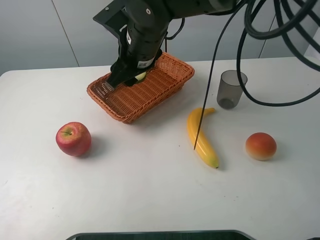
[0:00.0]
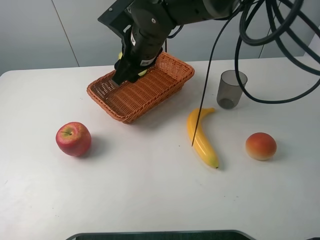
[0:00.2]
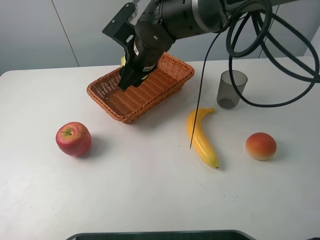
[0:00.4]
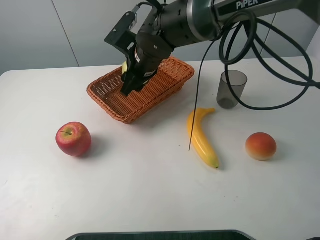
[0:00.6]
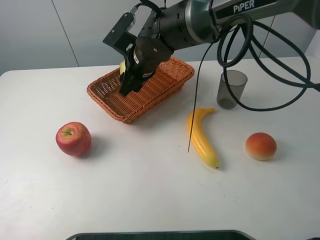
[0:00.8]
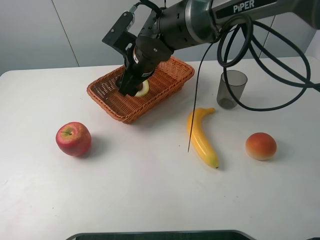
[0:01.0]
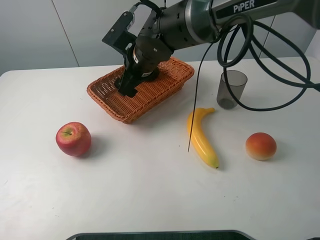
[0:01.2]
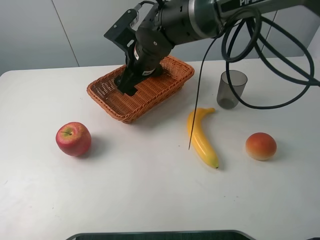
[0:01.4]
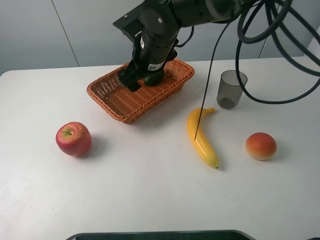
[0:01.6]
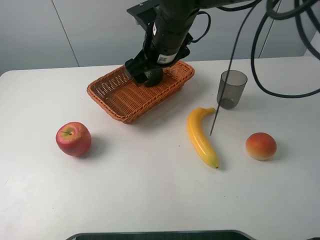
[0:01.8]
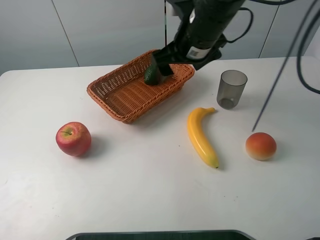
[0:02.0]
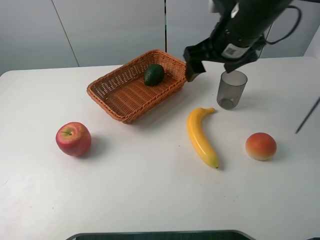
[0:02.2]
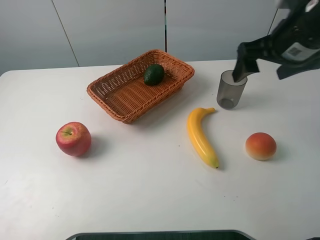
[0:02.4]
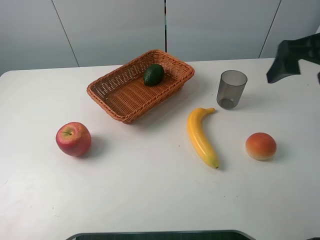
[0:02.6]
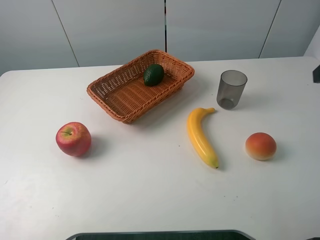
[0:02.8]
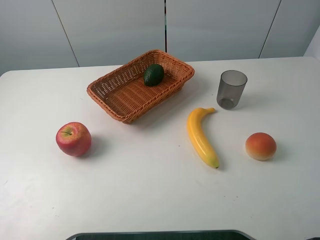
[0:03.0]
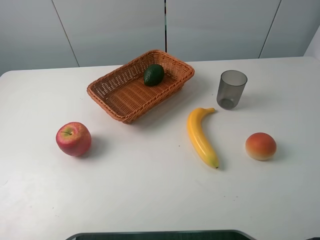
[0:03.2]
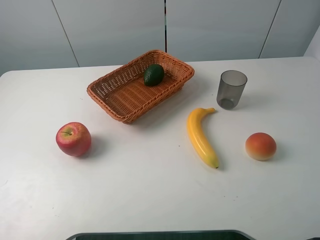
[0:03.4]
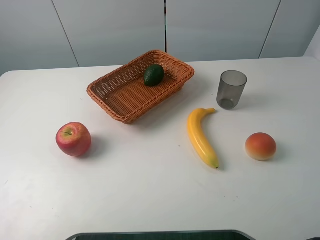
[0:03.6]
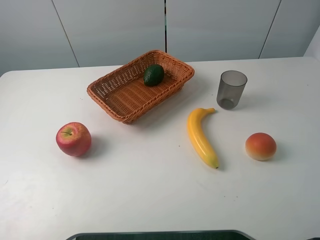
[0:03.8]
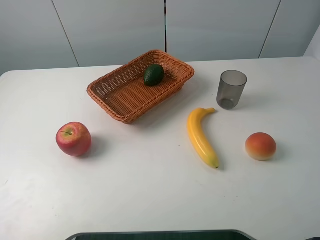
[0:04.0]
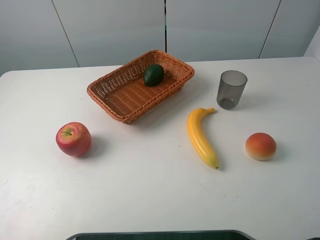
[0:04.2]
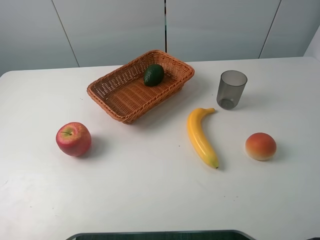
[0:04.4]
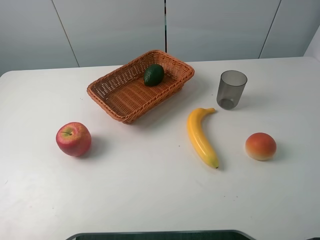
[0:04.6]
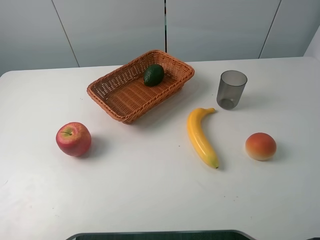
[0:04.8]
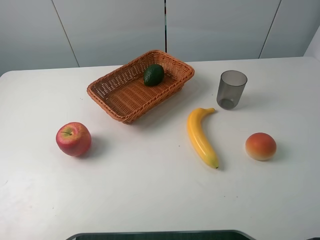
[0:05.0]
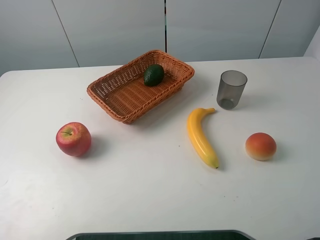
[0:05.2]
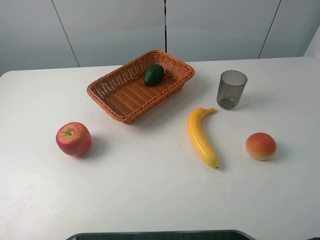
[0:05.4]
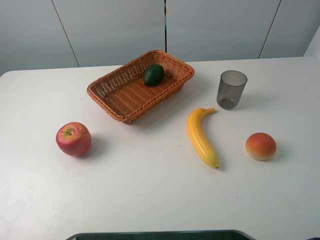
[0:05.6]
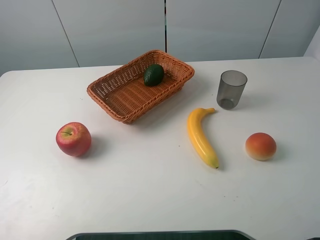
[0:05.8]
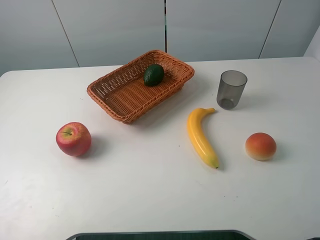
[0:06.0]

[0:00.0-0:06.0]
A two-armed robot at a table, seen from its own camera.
Task of the whole recording: randomly pick up an item from the table and put it in the basket.
Step, 0:00.0 to 0:02.0: Place the avocado into the basket with the right gripper.
0:00.0 to 0:01.6: The right gripper opens up.
0:01.6 to 0:03.0: The right gripper heads to the right, backward and upward, covering about 40 cm.
0:04.4 to 0:06.0: The two grippers keep their place.
